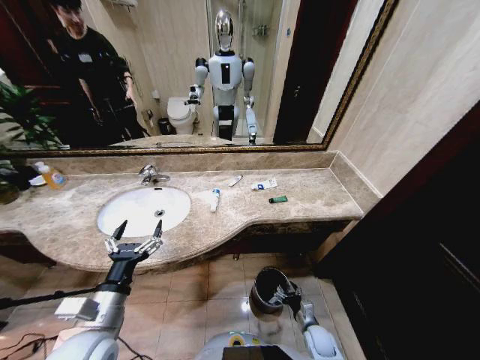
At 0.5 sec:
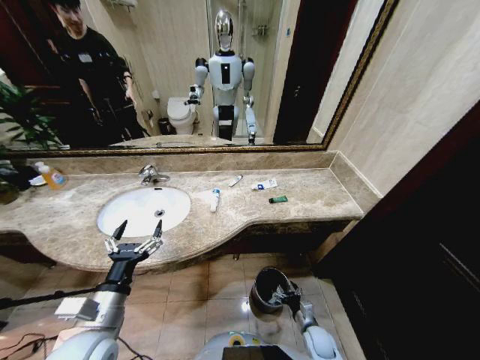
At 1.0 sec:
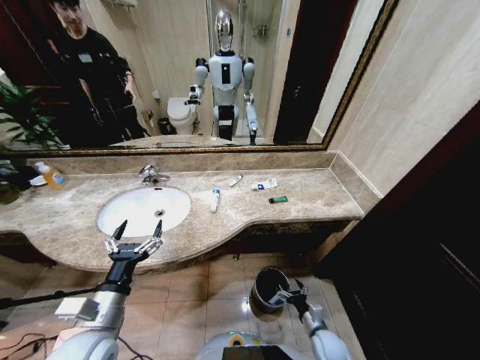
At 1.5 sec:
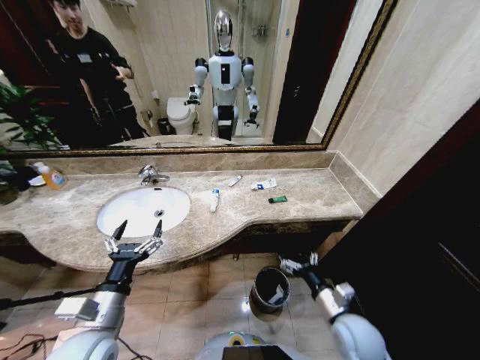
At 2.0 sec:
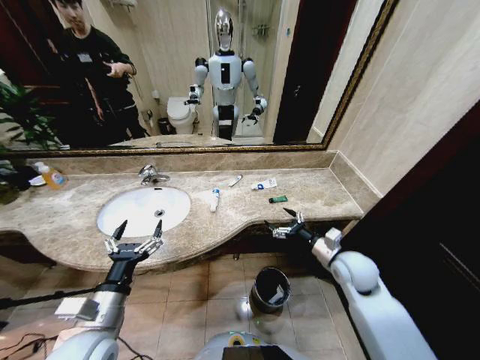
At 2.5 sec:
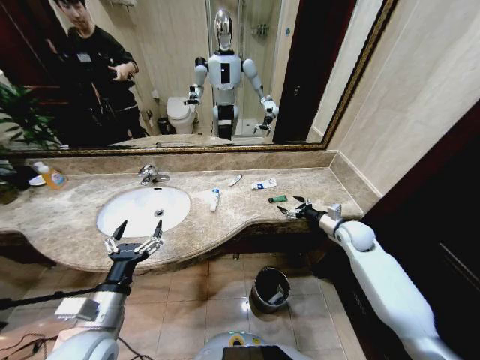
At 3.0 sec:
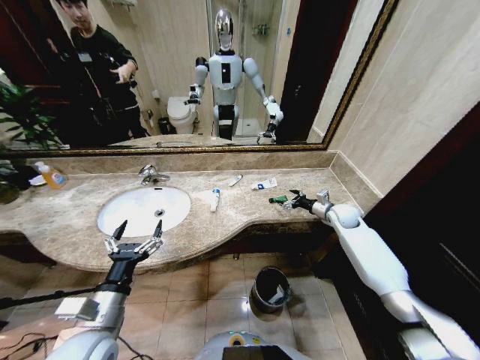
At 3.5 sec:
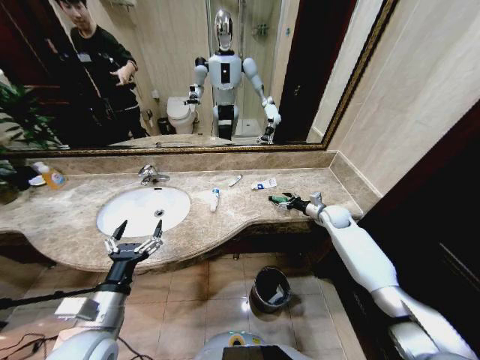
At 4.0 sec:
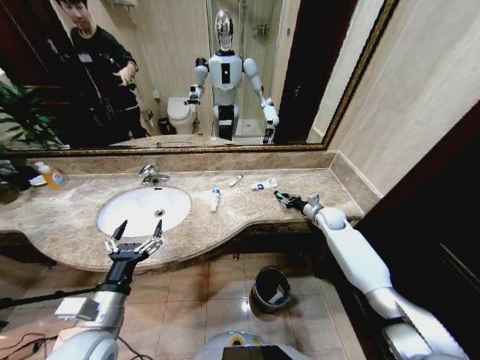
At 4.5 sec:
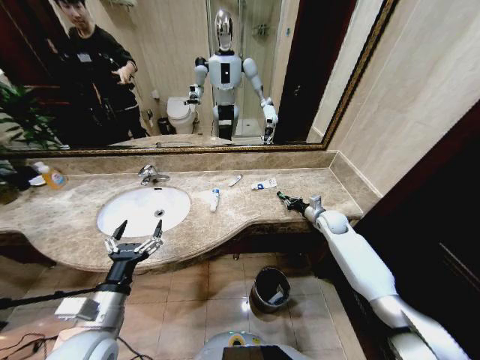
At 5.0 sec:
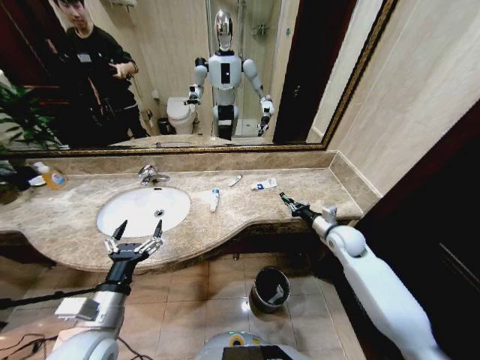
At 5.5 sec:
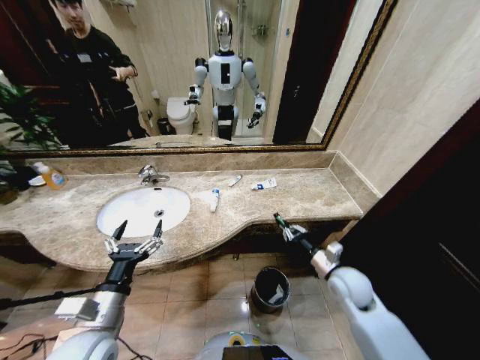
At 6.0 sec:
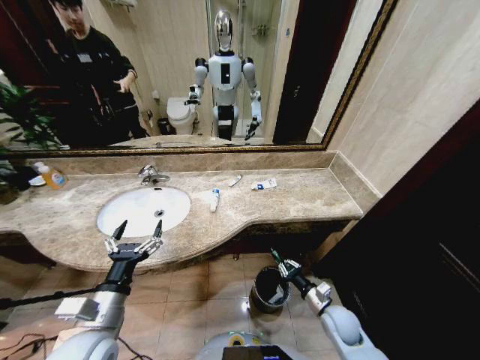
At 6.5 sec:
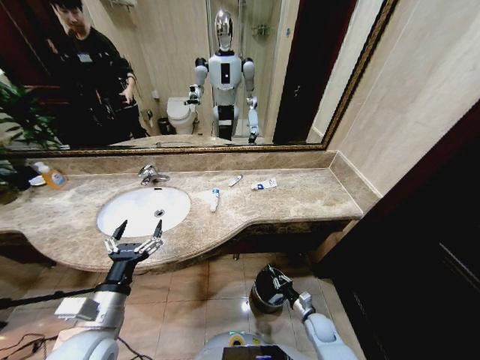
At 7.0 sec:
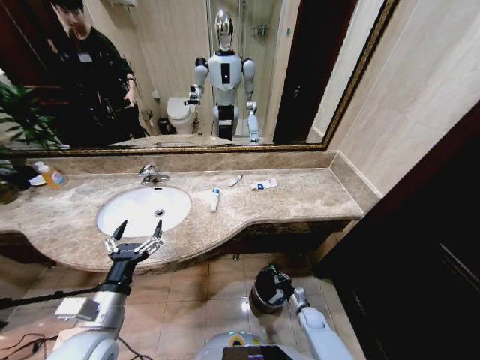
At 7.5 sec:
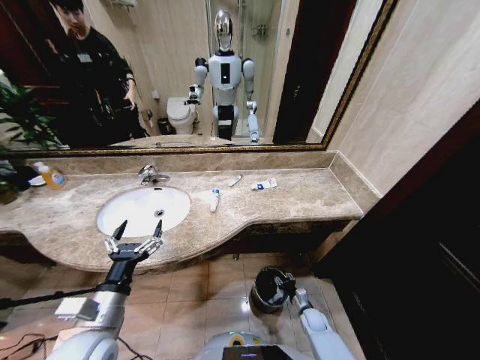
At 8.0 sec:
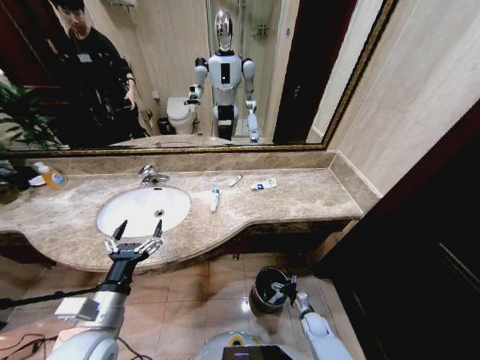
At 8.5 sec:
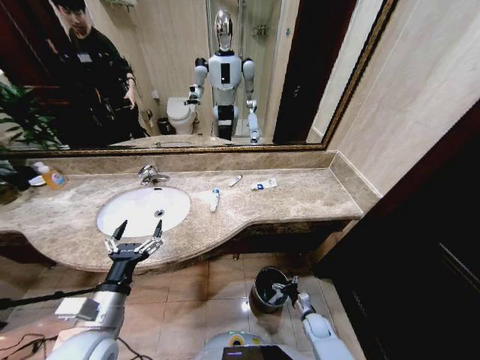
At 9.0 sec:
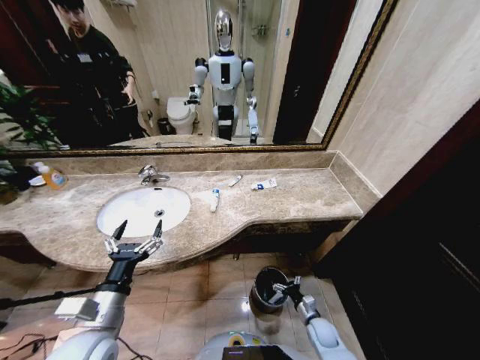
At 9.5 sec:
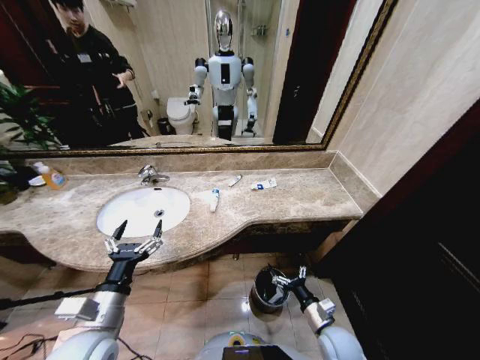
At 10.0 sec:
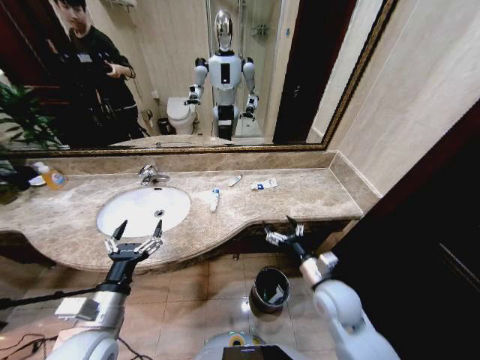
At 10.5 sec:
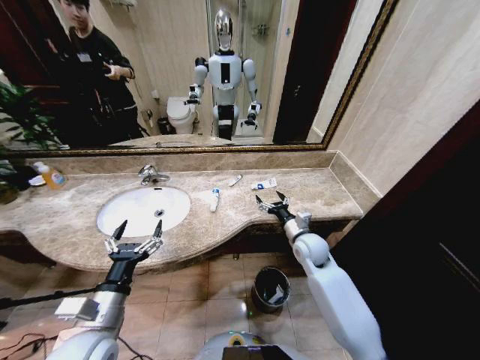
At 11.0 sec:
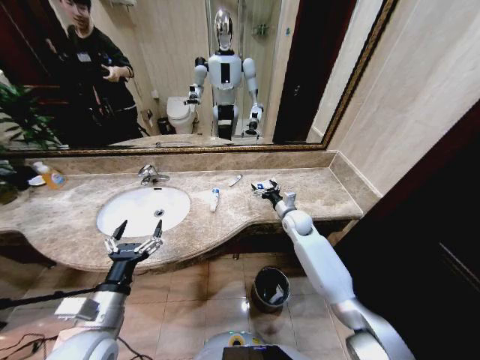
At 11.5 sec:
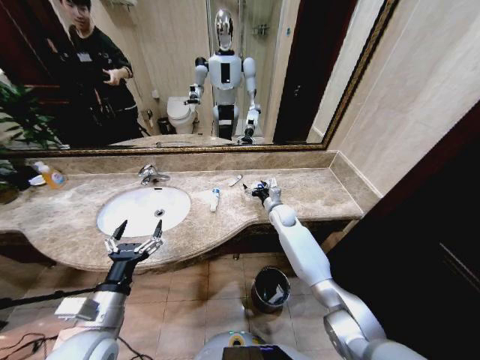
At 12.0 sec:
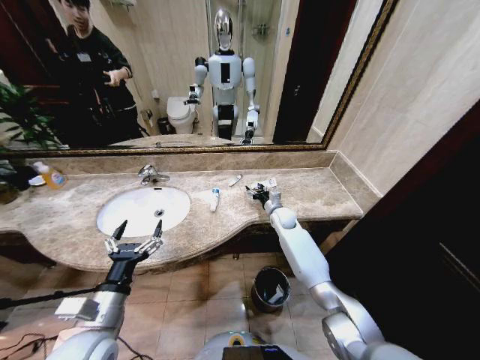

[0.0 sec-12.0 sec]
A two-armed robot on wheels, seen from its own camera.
Task of the whole recording: Pick up the trash from the sink and place it in the trash bin.
0.0 sec to 2.0 sec: The right gripper heads upward, covering roughly 30 cm.
2.0 sec to 4.0 sec: The right gripper travels forward by approximately 20 cm, and closes its fingers.
4.0 sec to 6.0 sec: The right gripper is displaced backward and downward by some 30 cm.
6.0 sec to 8.0 sec: The right gripper goes roughly 20 cm downward, and opens.
8.0 sec to 10.0 sec: The right gripper shifts approximately 35 cm upward.
10.0 sec to 12.0 sec: The right gripper goes some 30 cm forward.

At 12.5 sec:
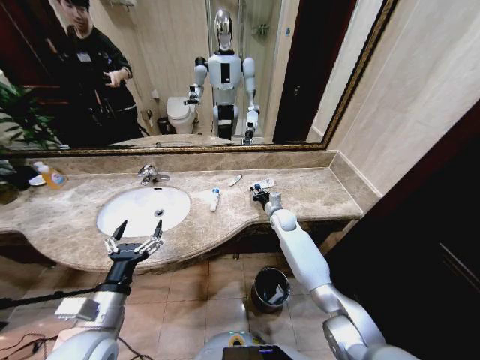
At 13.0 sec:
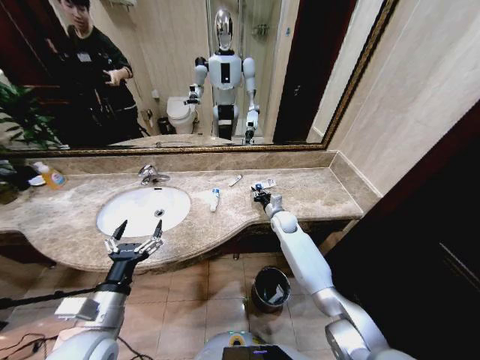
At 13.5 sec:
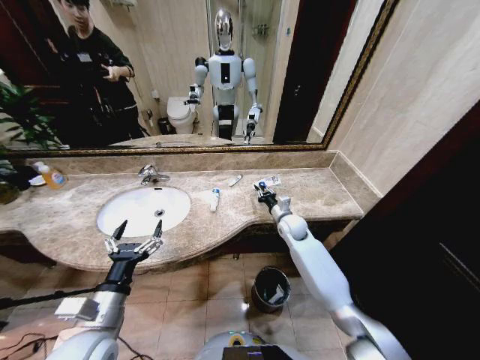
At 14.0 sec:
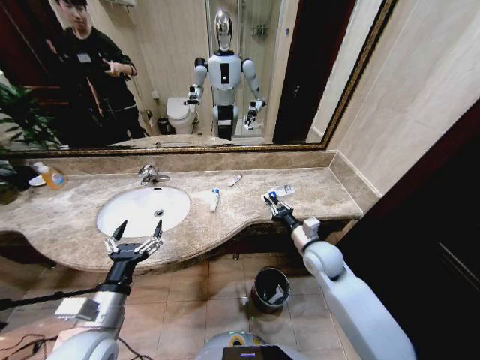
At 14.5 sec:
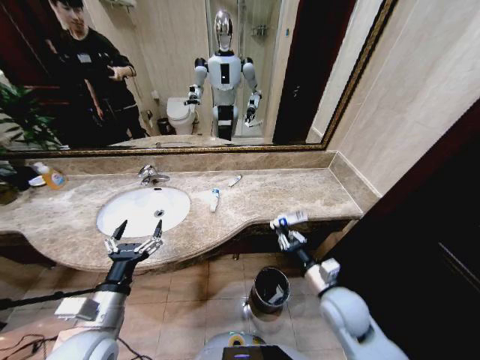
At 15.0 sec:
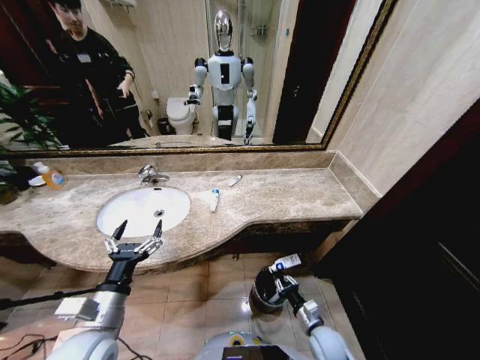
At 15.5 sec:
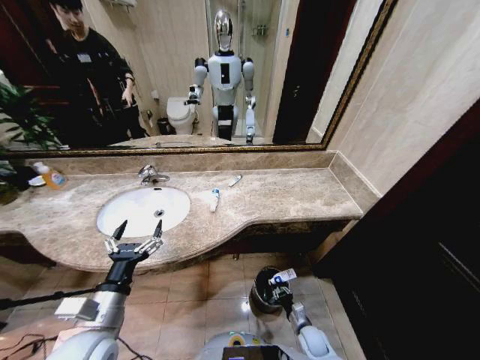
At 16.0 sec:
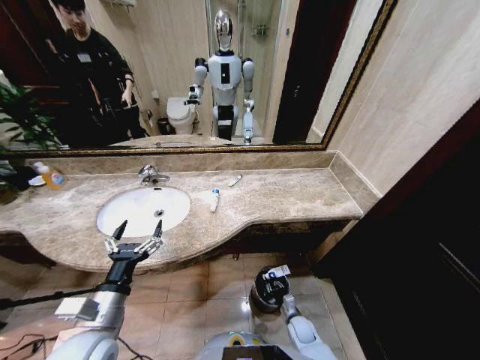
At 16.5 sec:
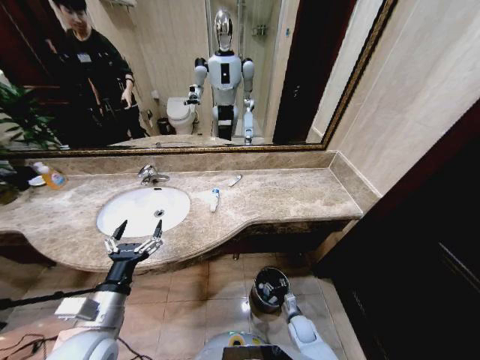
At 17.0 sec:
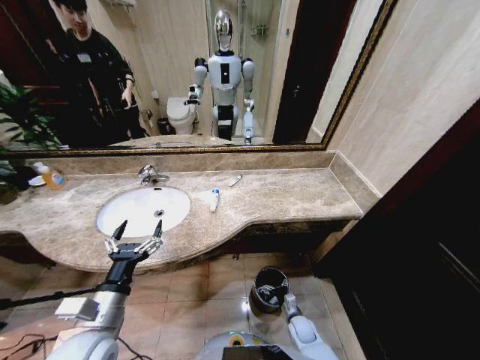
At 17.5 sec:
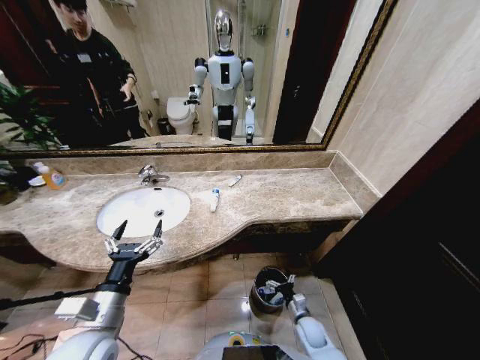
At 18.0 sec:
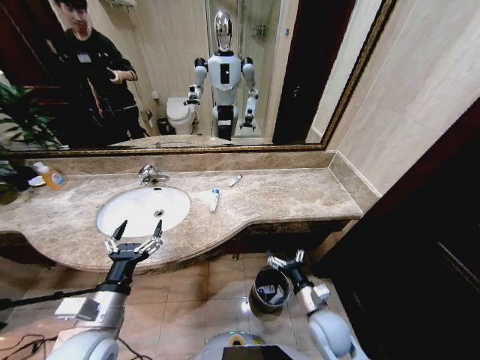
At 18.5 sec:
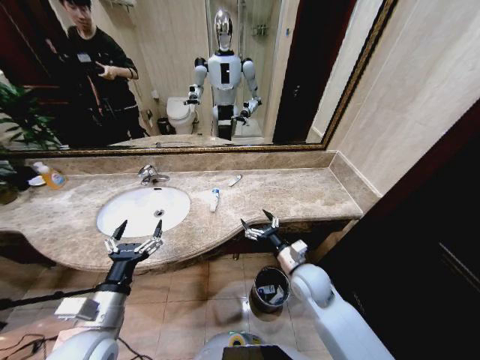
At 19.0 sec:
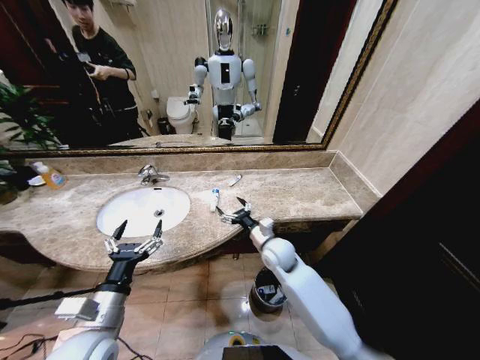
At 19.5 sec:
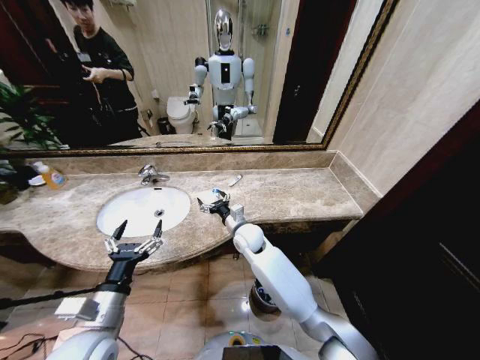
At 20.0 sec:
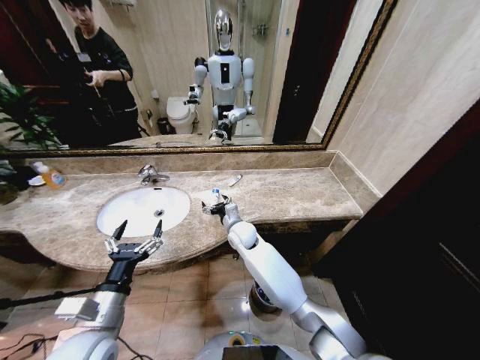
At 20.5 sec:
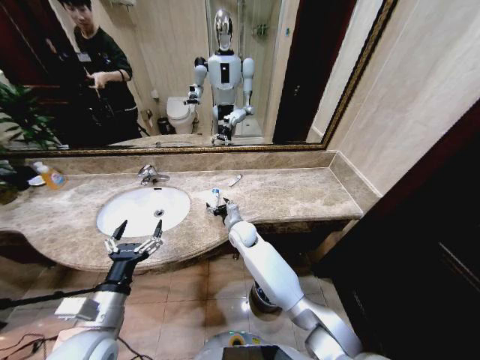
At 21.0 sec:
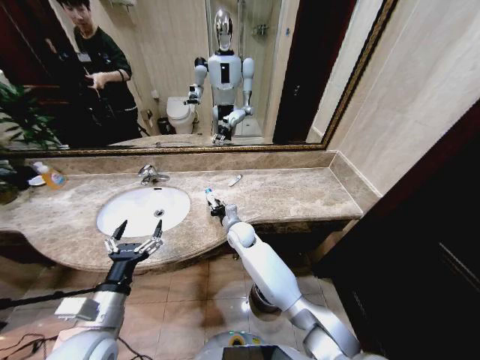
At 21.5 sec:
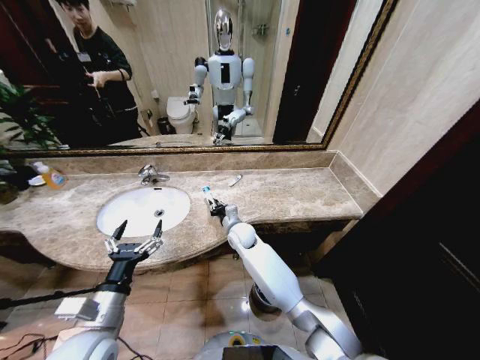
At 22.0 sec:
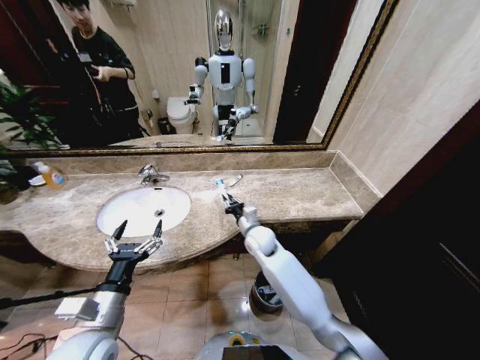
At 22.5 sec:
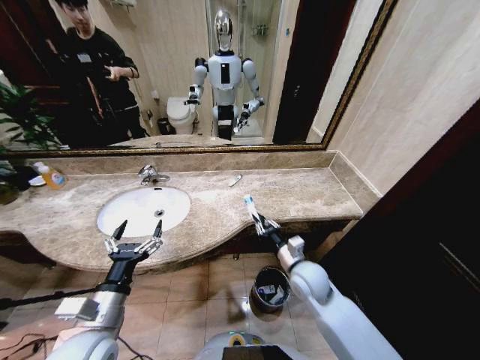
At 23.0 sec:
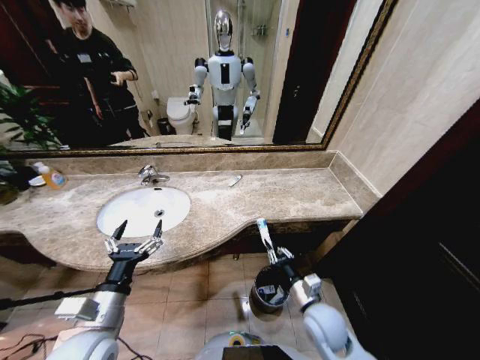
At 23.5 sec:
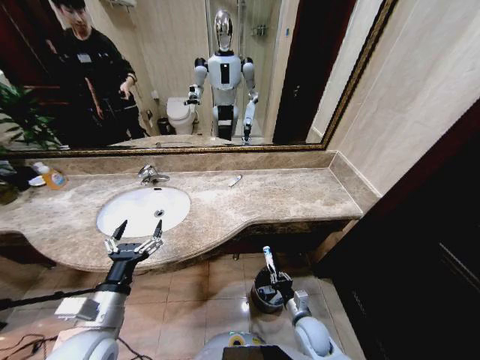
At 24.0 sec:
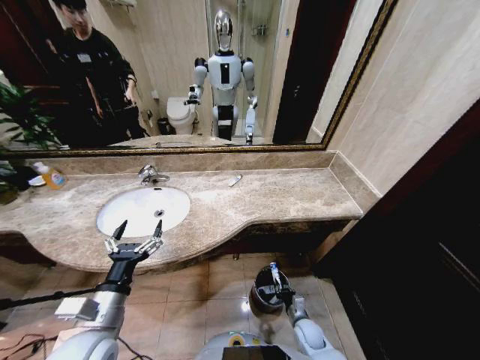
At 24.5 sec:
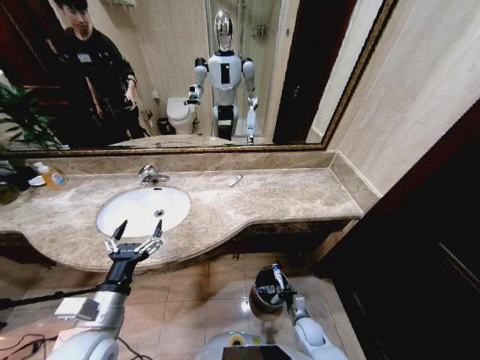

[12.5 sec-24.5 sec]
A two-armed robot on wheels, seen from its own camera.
Task of the whole recording: Pick up the trash from the sink and place it in the trash bin.
12.5 sec to 14.5 sec: The right gripper is displaced backward by approximately 30 cm.
14.5 sec to 16.5 sec: The right gripper is displaced downward by about 30 cm, and opens up.
16.5 sec to 18.5 sec: The right gripper is displaced upward by roughly 30 cm, and opens its fingers.
18.5 sec to 20.5 sec: The right gripper heads to the left and forward, covering roughly 25 cm.
20.5 sec to 22.5 sec: The right gripper heads to the right and backward, covering about 25 cm, and closes.
22.5 sec to 24.5 sec: The right gripper moves downward, some 30 cm.

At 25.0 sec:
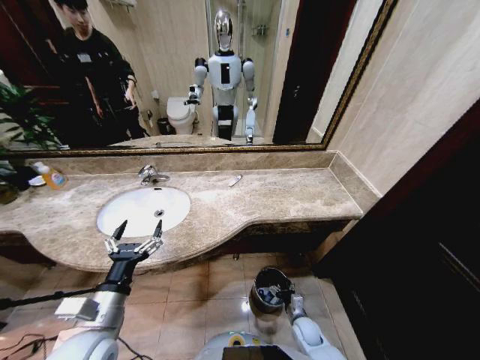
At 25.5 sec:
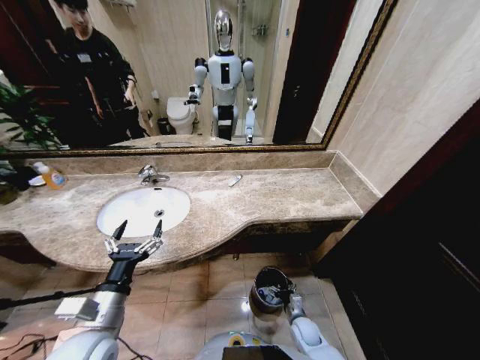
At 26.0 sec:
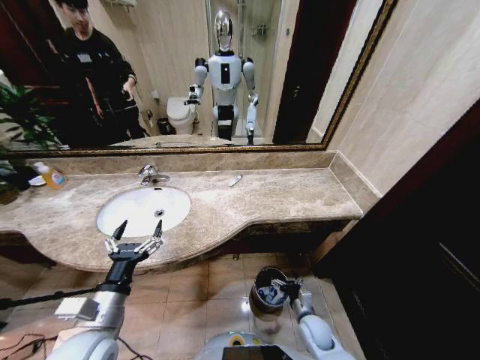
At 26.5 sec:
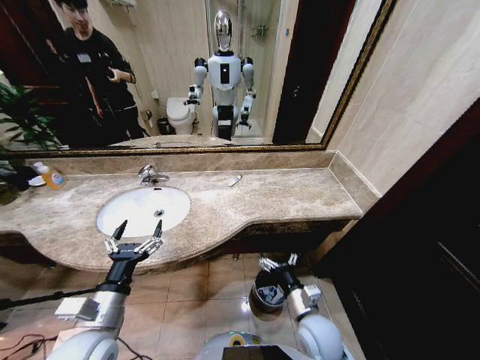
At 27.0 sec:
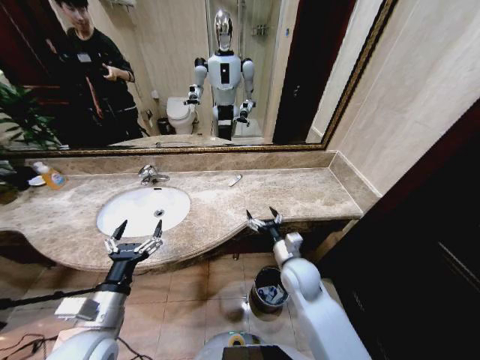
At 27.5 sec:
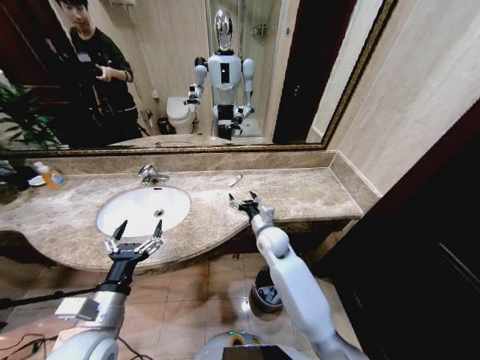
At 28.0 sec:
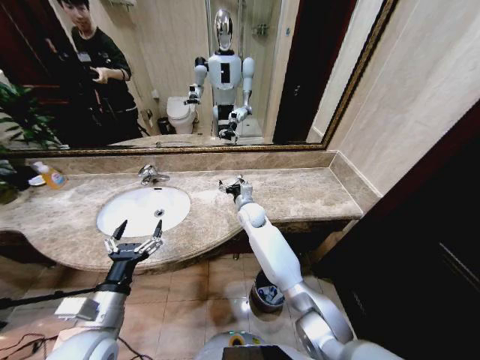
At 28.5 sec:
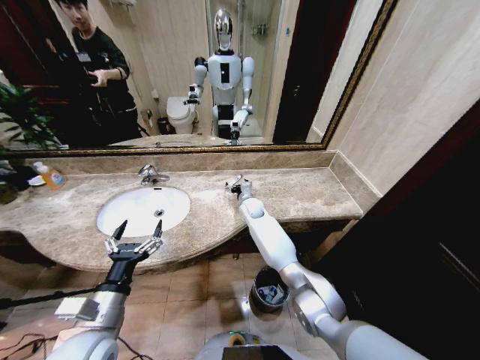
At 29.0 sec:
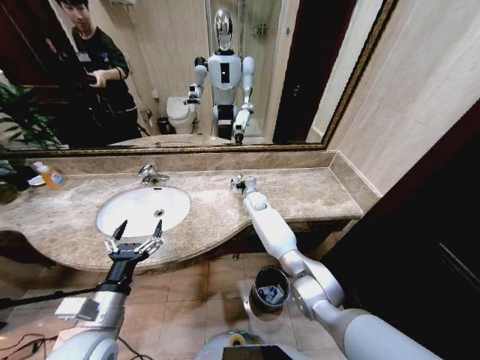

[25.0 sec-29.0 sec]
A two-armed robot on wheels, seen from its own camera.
Task of the whole recording: Pick up the trash from the sink and place it in the trash bin.
25.0 sec to 27.0 sec: The right gripper heads upward, covering some 30 cm.
27.0 sec to 29.0 sec: The right gripper is displaced forward by some 30 cm.
